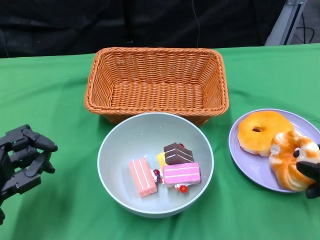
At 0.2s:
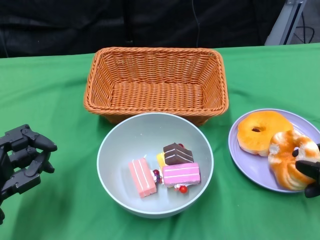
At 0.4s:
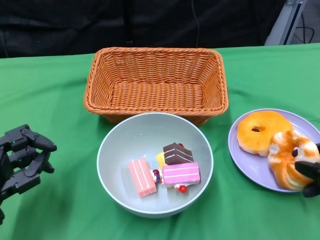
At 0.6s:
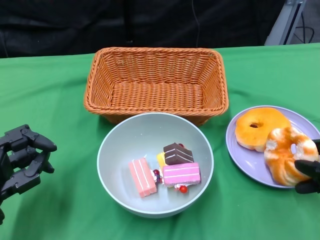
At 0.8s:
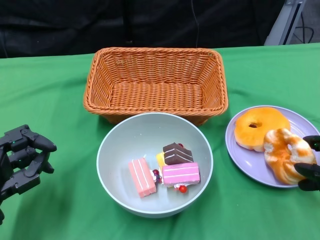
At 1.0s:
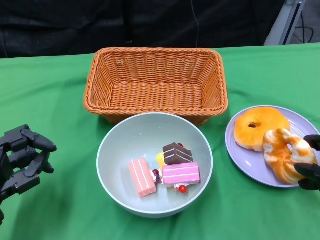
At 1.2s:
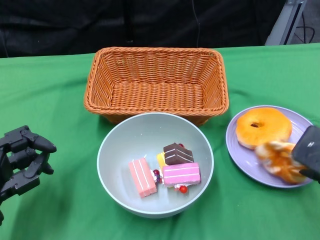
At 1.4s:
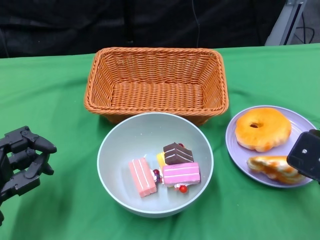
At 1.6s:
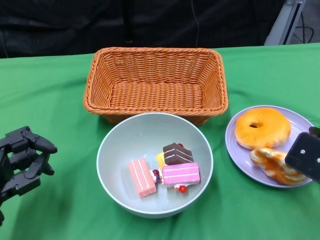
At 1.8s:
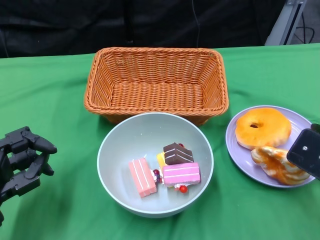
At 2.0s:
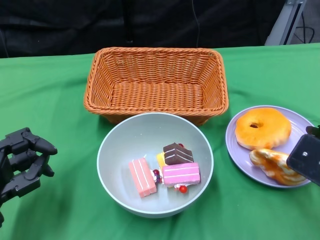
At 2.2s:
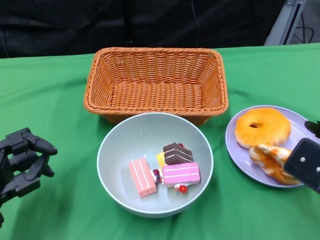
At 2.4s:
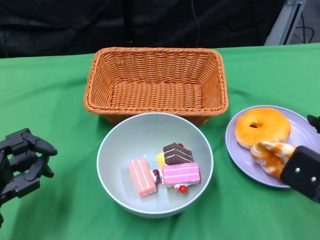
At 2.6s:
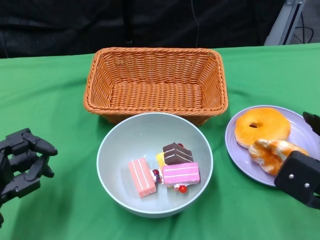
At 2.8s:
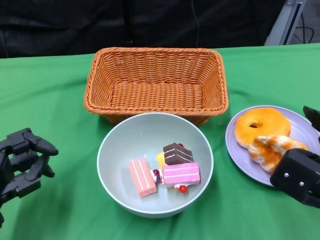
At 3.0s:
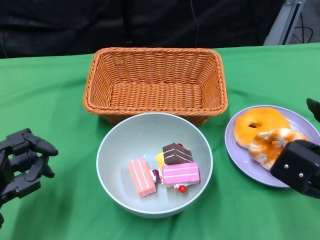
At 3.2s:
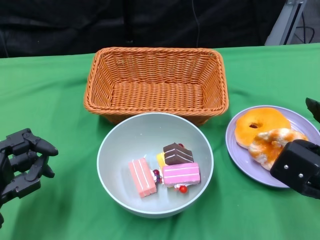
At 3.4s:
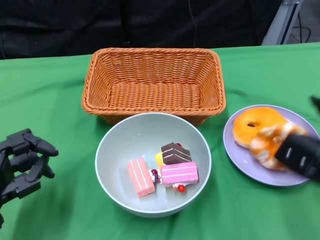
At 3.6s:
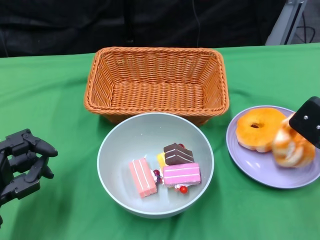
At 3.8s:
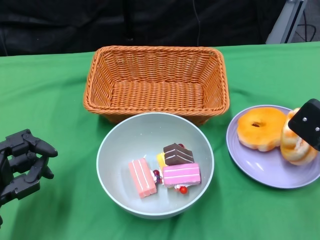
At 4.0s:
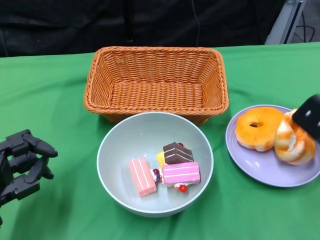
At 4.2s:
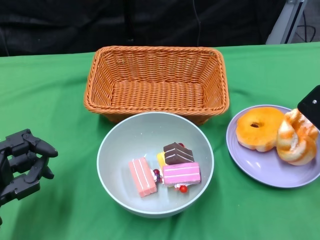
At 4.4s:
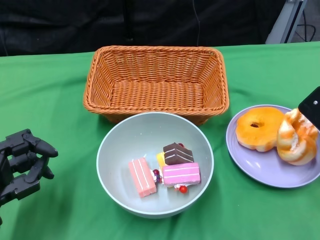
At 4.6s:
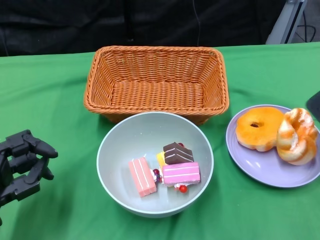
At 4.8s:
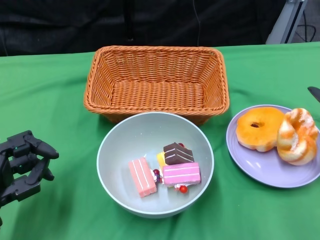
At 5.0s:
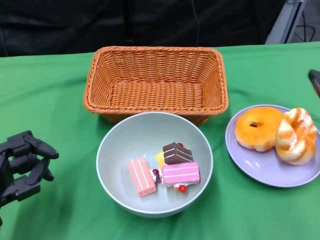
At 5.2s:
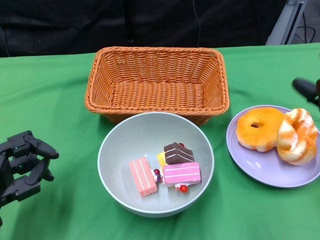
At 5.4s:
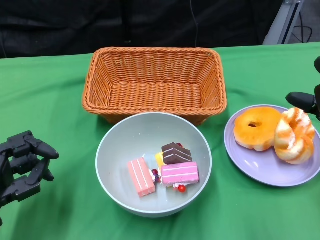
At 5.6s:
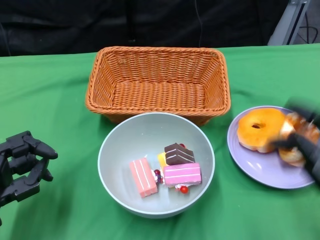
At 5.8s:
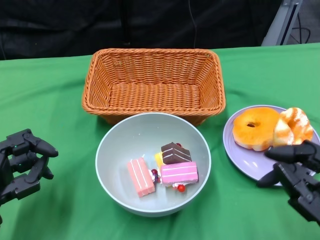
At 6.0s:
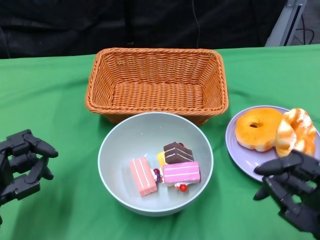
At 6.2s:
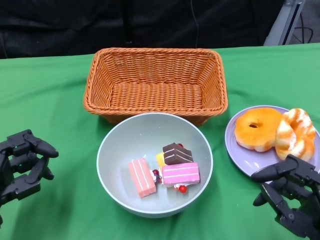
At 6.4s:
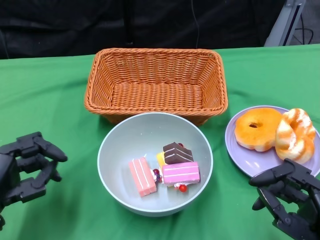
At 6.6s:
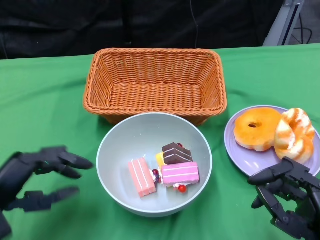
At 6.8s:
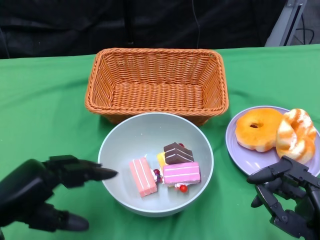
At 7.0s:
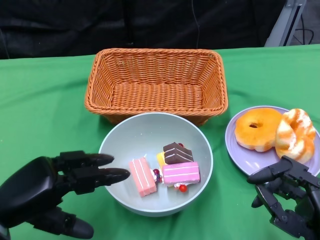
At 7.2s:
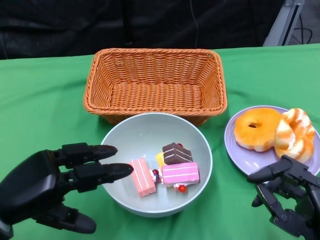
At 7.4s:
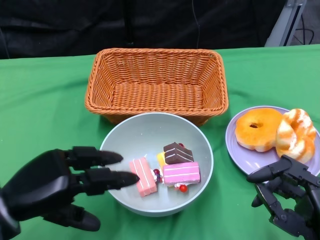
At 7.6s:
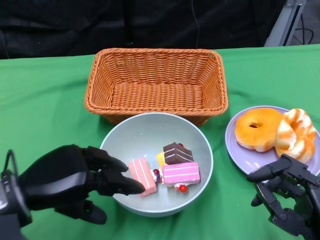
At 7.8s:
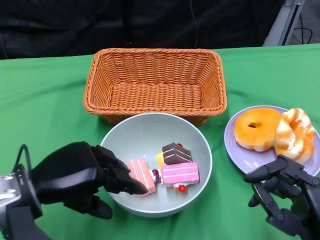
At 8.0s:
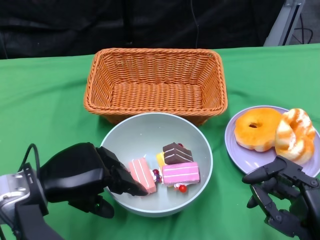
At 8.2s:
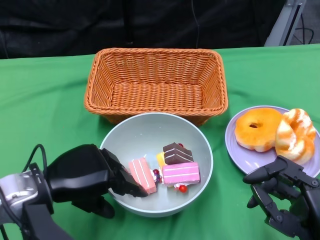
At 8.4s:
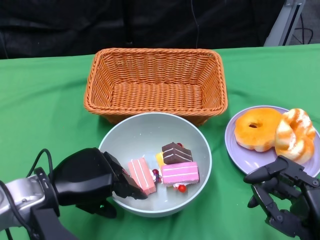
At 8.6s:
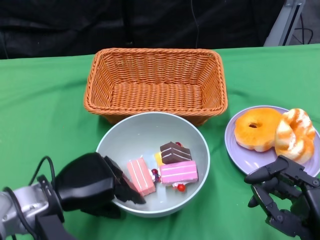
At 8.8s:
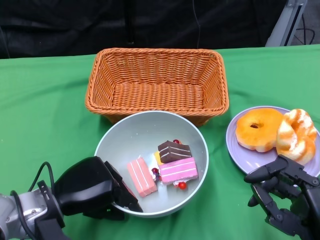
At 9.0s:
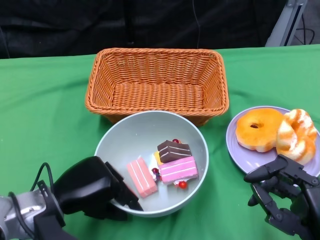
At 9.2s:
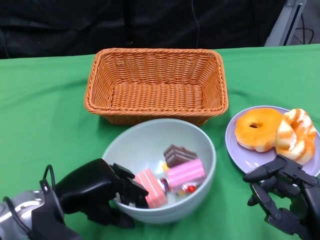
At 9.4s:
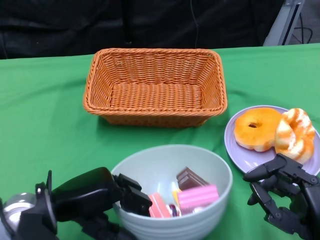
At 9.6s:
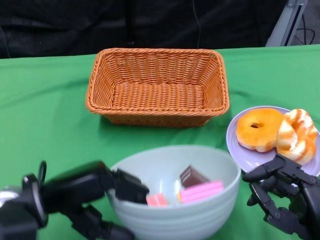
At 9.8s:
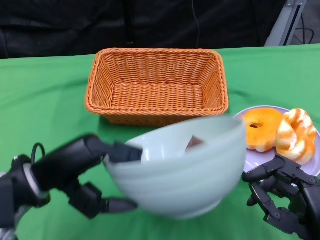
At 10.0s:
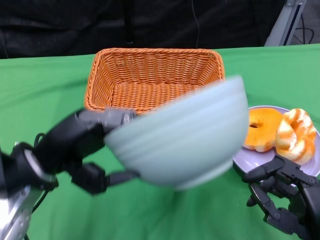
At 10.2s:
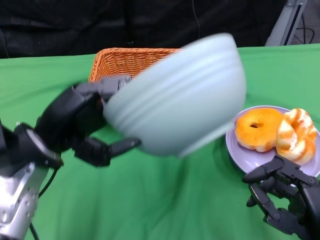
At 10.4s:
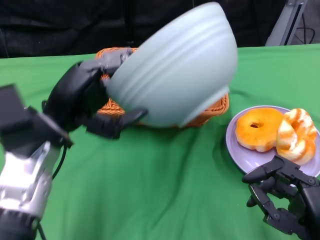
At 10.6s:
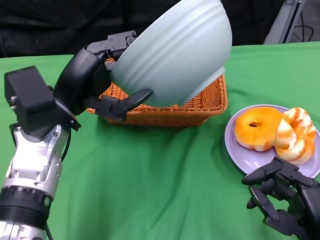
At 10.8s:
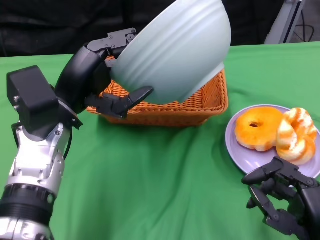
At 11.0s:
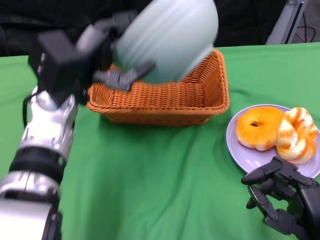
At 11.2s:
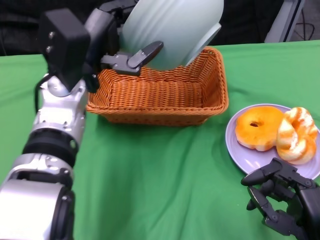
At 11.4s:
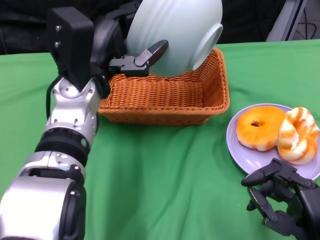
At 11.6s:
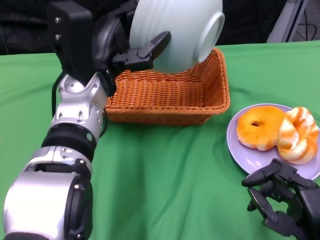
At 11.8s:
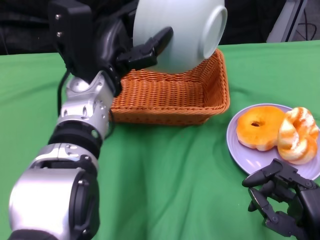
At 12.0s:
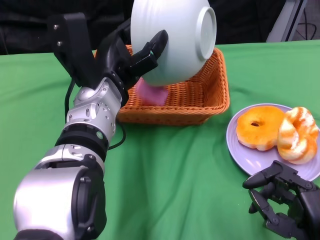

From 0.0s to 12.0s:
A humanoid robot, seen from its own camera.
Step, from 0.0s to 5.4s: Pick up the bread with the right gripper and place it on the plate.
Step, from 5.6s to 8.8s: Grasp the bowl with the left gripper.
From 3.0s to 4.4s: The right hand heads forward, covering roughly 5 cm.
From 4.4s to 6.0s: The right hand heads backward, covering approximately 15 cm.
From 6.0s to 7.6s: The left hand heads upward, covering about 5 cm.
From 7.6s to 9.0s: The left hand is displaced downward by some 5 cm.
From 9.0s to 10.4s: The left hand shifts about 10 cm upward.
From 10.4s to 12.0s: The left hand is displaced to the right and forward by approximately 10 cm.

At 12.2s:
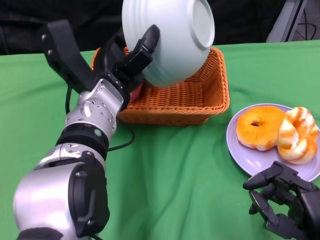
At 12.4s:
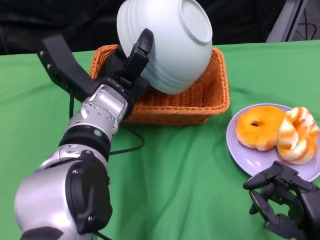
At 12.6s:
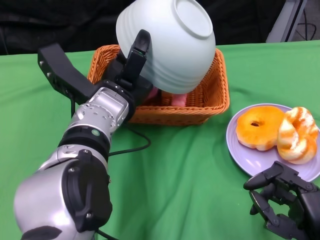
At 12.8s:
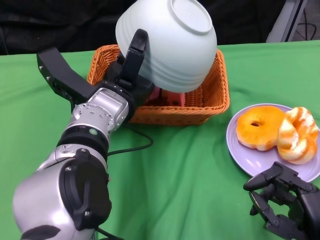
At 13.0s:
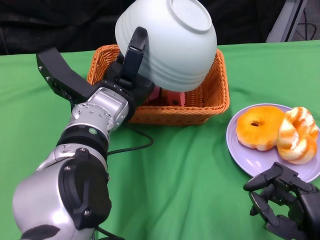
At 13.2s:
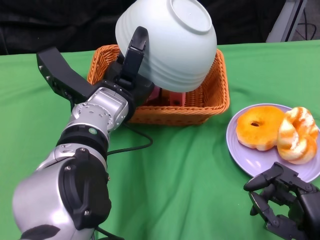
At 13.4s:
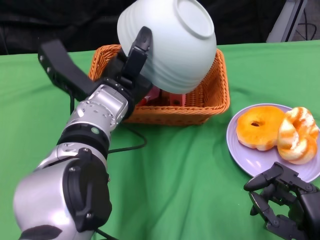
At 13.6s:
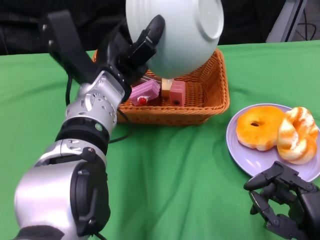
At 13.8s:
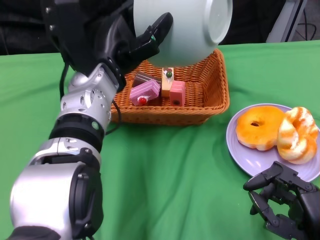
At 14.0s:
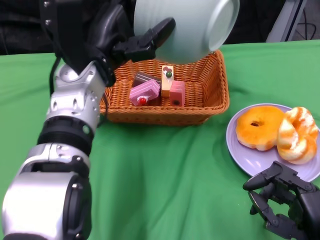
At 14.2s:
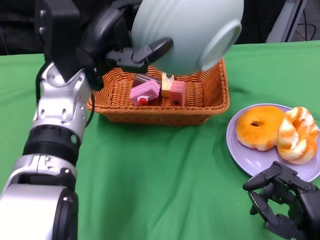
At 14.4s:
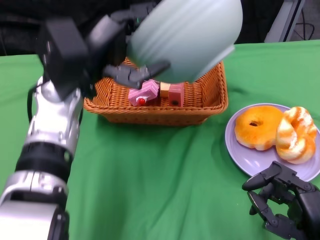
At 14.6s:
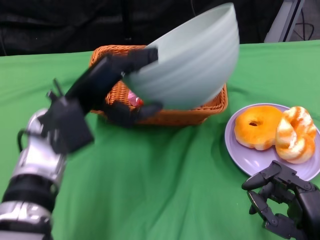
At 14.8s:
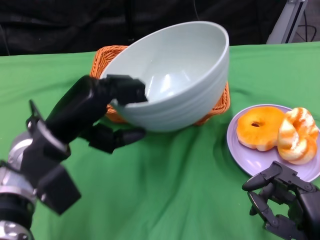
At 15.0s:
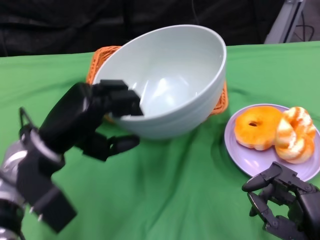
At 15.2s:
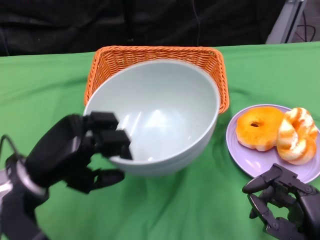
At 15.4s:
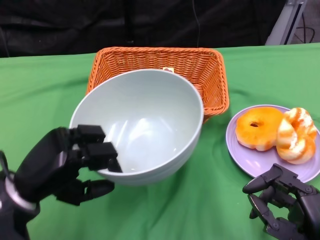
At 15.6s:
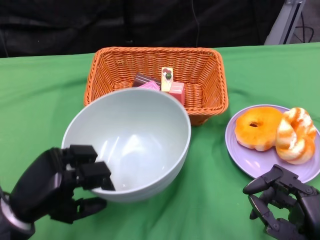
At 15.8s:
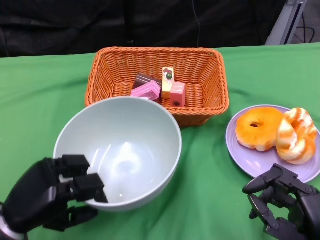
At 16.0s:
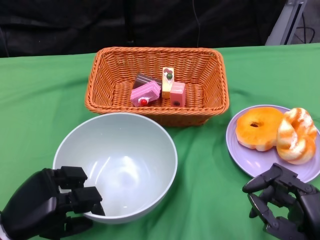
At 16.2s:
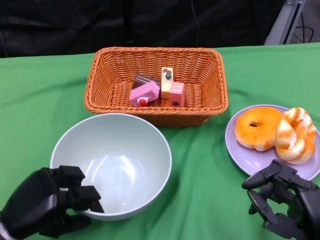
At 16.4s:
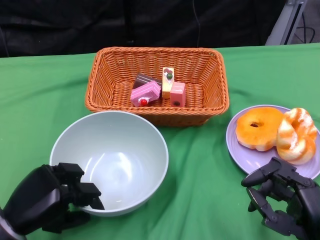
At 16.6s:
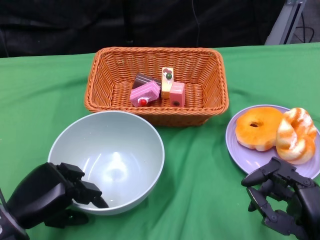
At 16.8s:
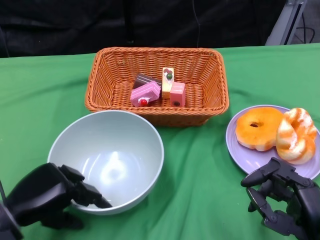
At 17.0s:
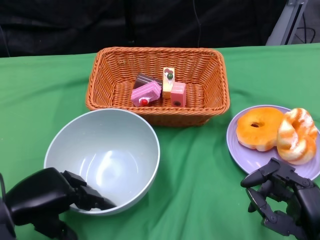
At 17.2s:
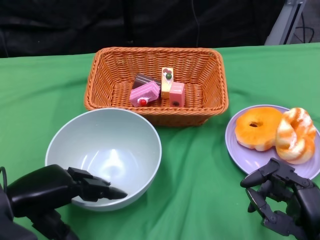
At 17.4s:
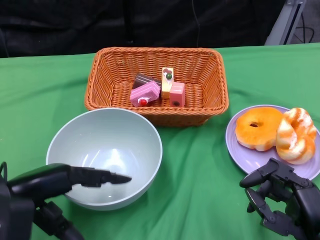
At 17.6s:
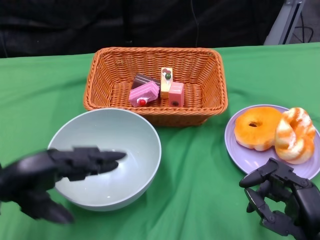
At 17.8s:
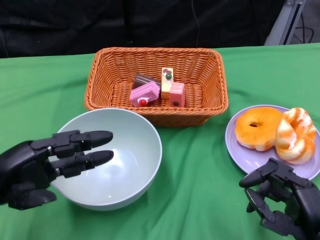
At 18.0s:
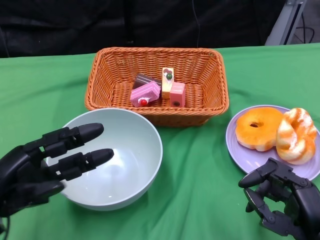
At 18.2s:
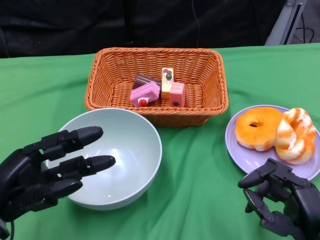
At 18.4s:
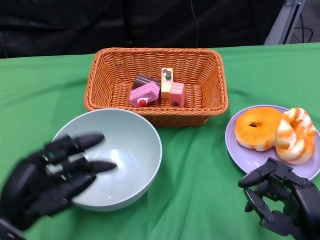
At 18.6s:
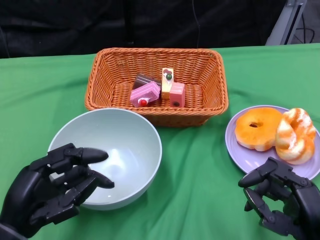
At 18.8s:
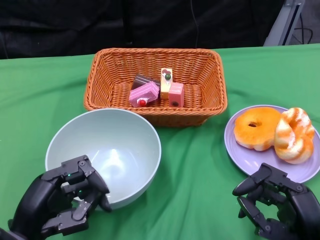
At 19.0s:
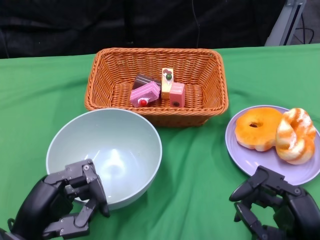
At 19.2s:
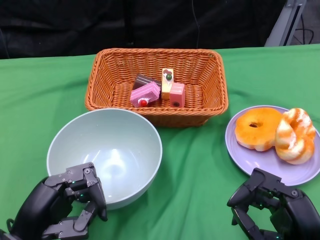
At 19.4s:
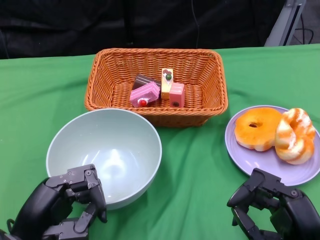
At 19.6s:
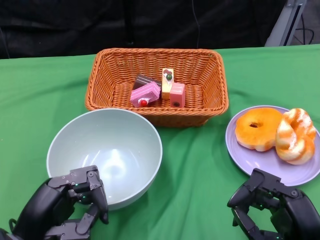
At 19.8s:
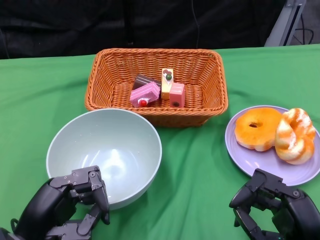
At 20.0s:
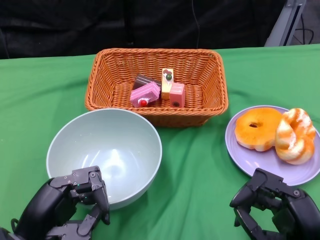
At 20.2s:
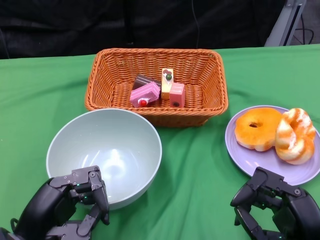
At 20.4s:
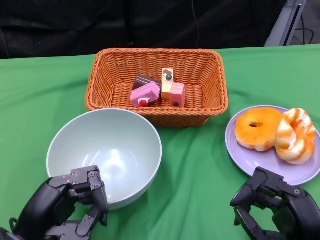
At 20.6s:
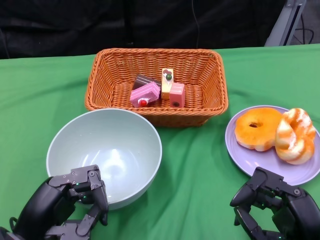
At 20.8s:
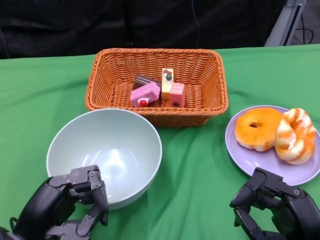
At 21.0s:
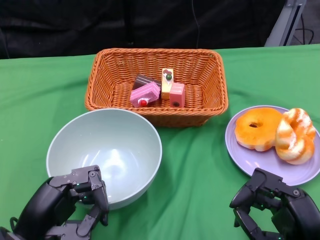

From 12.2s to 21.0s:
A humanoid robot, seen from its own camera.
Step, from 13.8s to 18.0s: Place the bowl on the table with the left gripper.
From 13.6s to 15.2s: The left hand moves to the left, backward and downward, roughly 15 cm.
From 15.2s to 16.6s: The left hand heads downward, covering some 5 cm.
From 16.6s to 18.0s: The left hand is displaced upward by some 5 cm.
From 18.0s to 19.6s: The left hand ends up roughly 5 cm from where it was.
From 19.6s to 21.0s: Neither hand changes place.

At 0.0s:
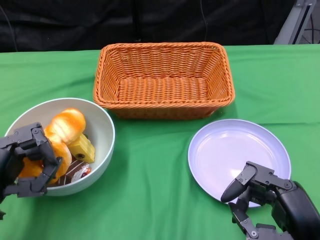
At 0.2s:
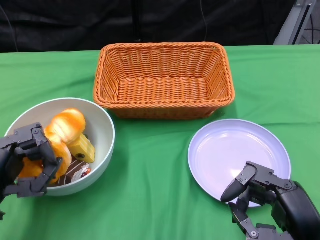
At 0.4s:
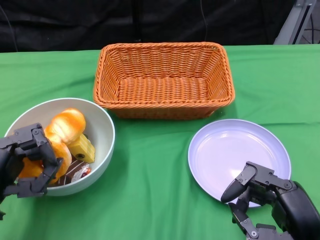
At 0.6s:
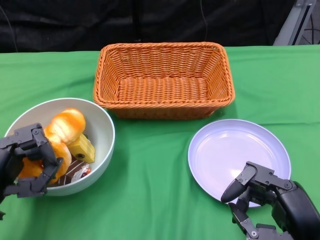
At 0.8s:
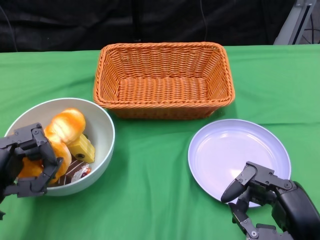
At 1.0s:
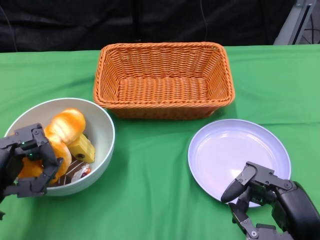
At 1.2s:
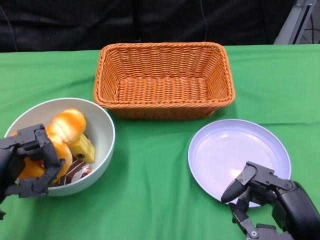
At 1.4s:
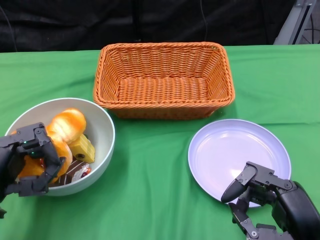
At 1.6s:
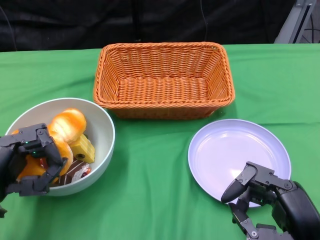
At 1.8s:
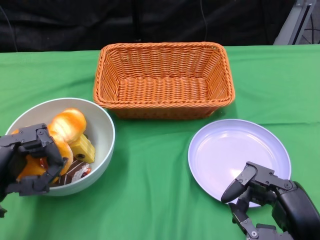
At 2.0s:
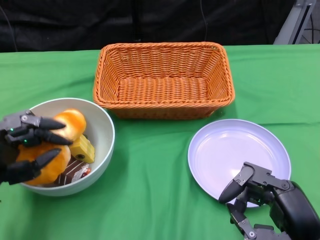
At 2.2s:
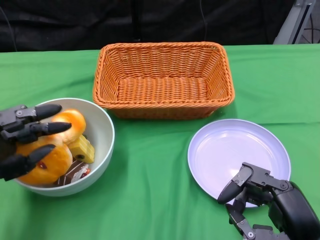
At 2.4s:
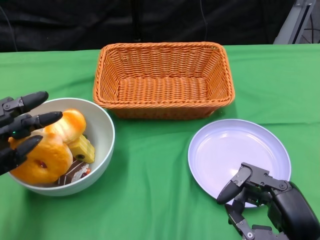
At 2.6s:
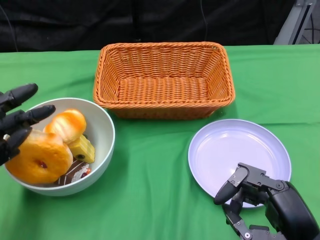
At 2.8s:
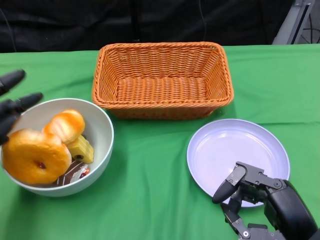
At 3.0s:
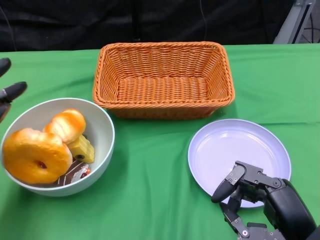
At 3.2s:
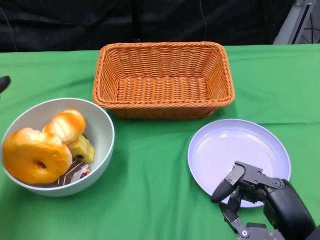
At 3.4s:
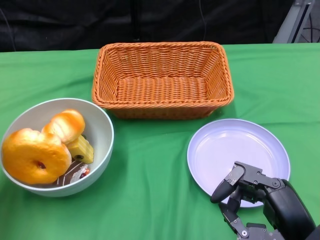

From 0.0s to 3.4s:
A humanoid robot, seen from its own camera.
From 1.6s to 3.4s: The left hand is displaced to the left by approximately 5 cm.
